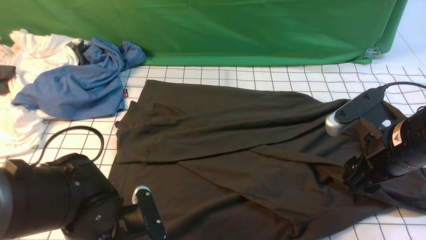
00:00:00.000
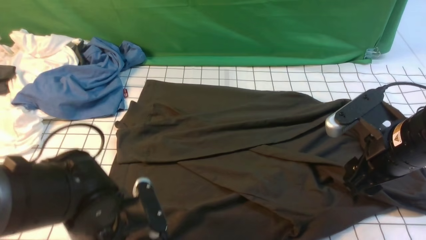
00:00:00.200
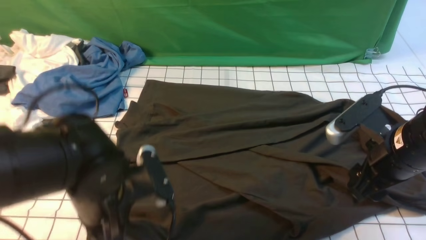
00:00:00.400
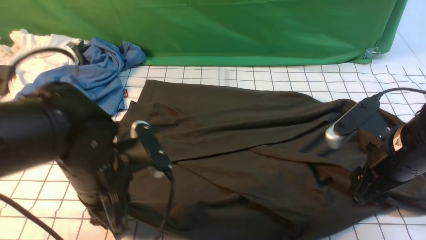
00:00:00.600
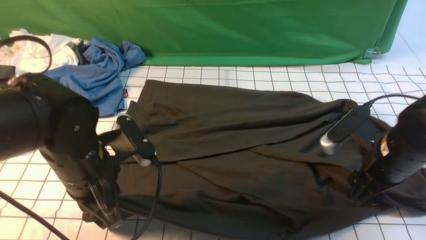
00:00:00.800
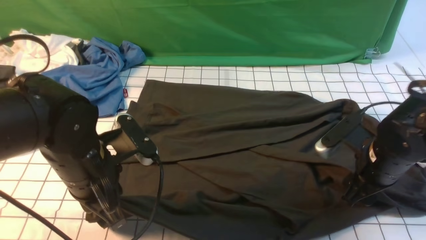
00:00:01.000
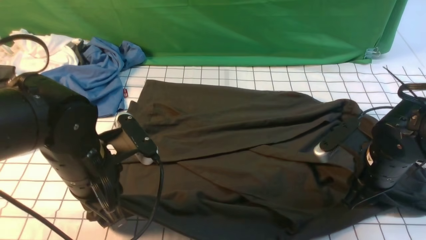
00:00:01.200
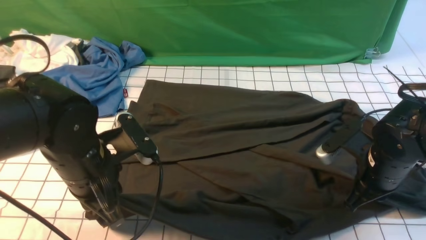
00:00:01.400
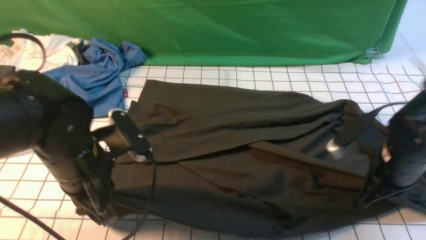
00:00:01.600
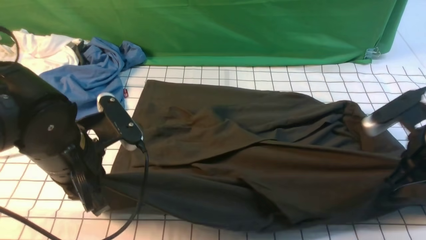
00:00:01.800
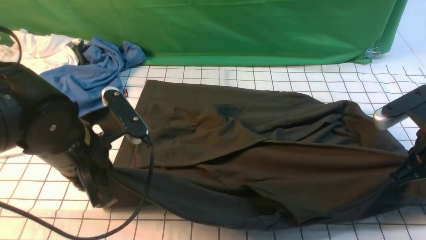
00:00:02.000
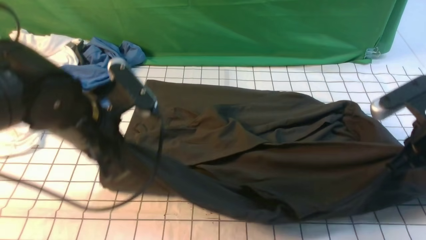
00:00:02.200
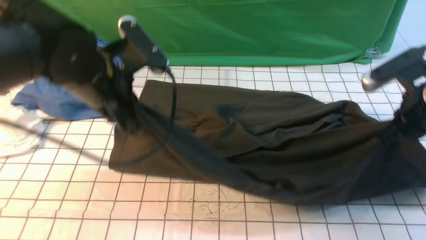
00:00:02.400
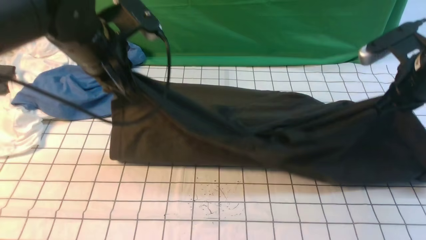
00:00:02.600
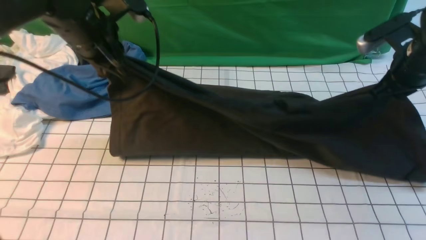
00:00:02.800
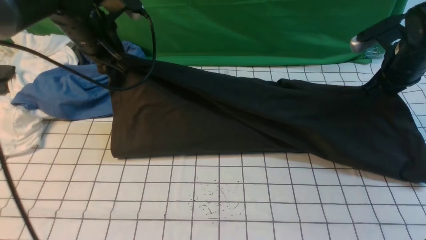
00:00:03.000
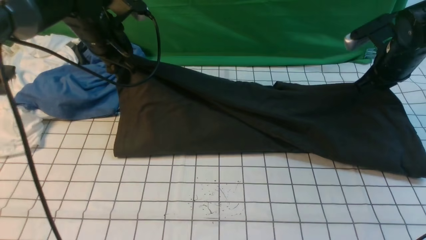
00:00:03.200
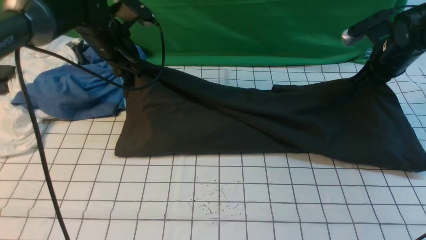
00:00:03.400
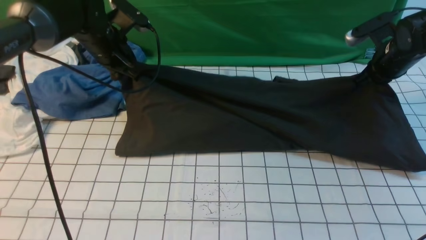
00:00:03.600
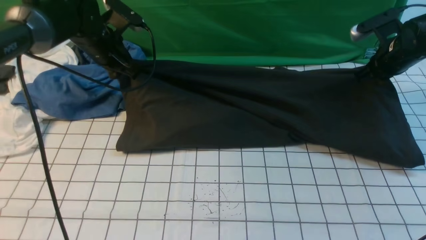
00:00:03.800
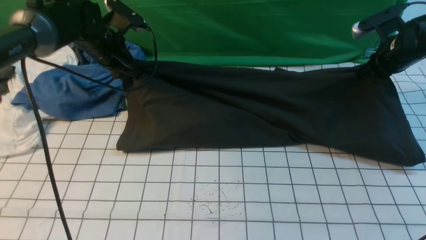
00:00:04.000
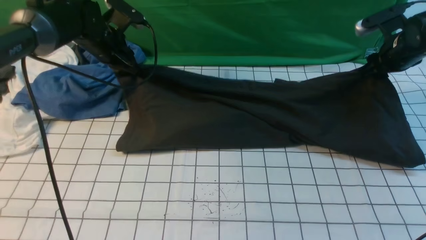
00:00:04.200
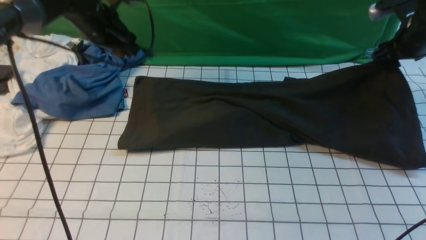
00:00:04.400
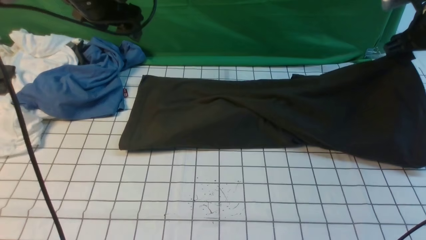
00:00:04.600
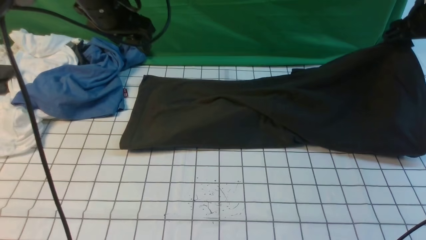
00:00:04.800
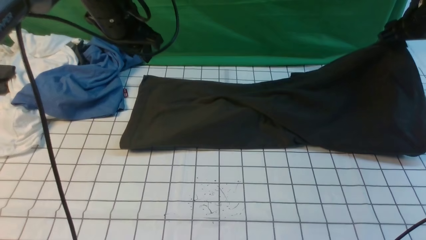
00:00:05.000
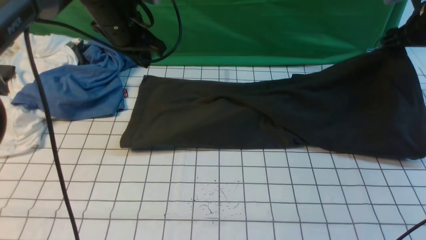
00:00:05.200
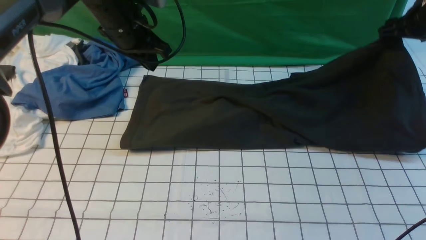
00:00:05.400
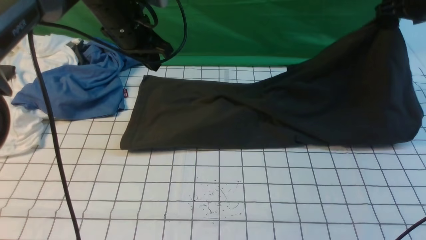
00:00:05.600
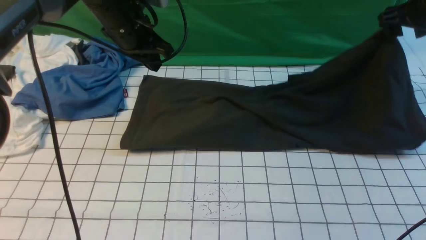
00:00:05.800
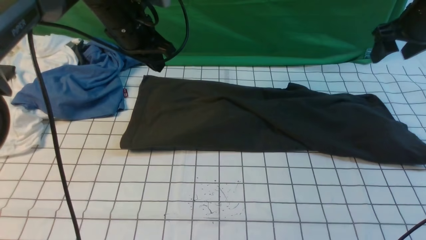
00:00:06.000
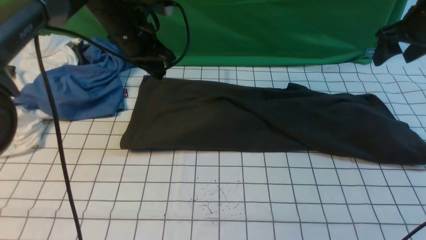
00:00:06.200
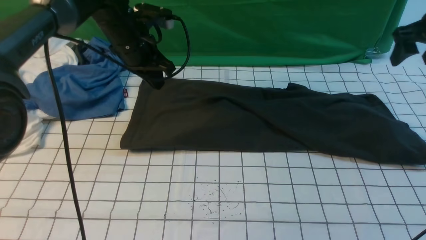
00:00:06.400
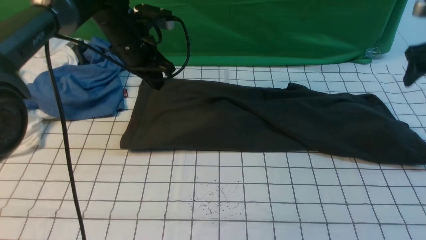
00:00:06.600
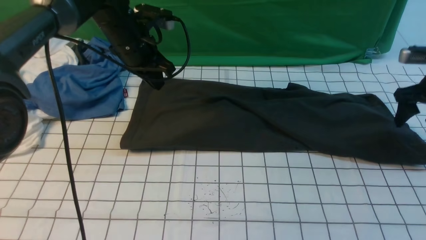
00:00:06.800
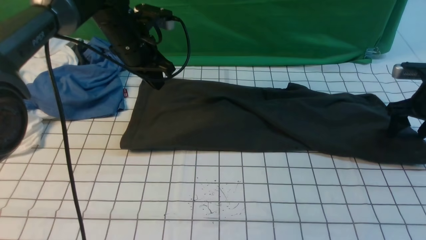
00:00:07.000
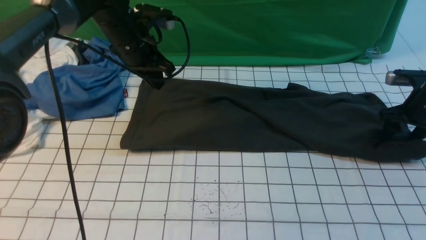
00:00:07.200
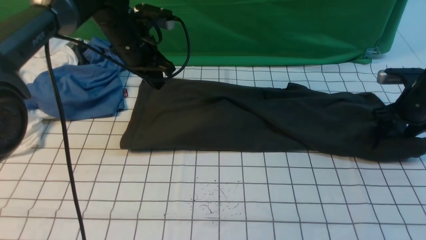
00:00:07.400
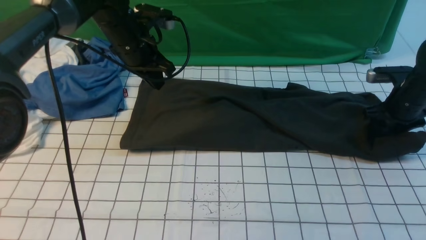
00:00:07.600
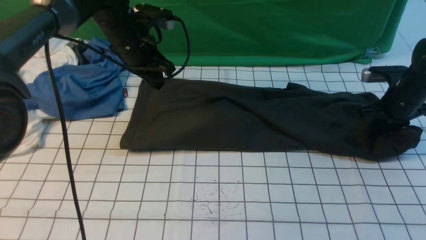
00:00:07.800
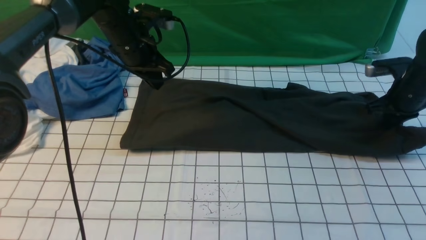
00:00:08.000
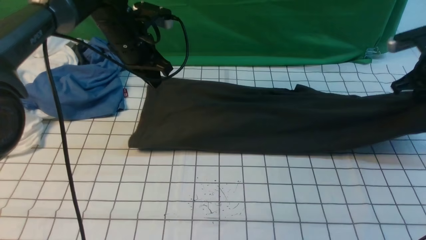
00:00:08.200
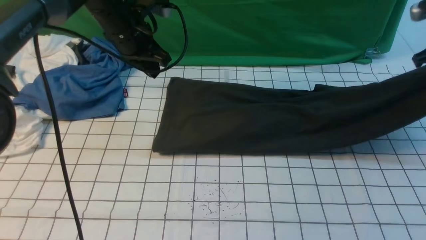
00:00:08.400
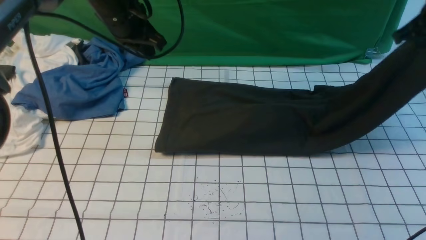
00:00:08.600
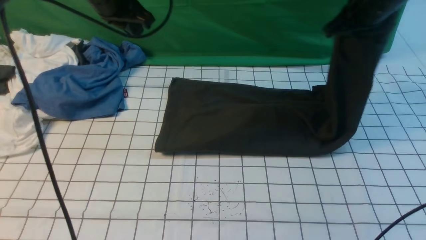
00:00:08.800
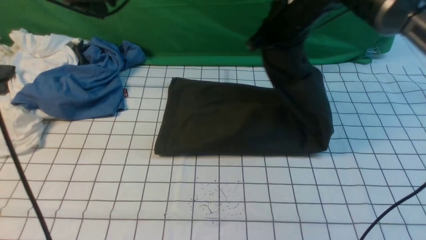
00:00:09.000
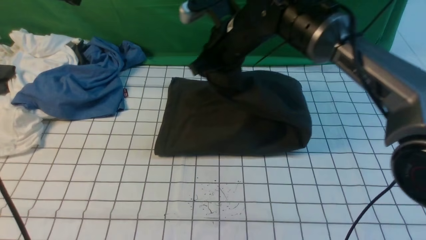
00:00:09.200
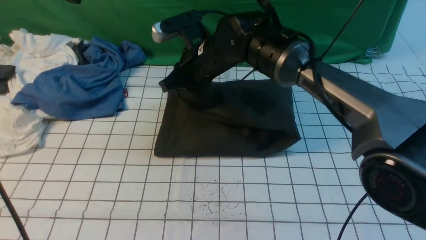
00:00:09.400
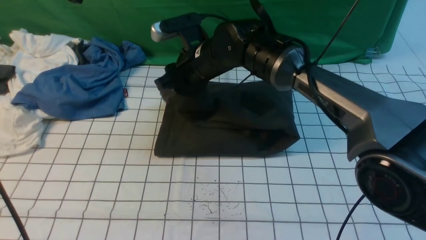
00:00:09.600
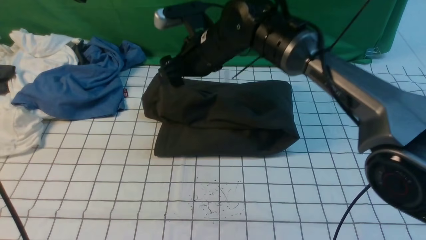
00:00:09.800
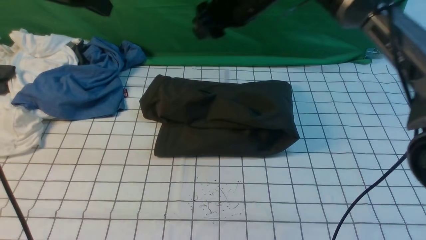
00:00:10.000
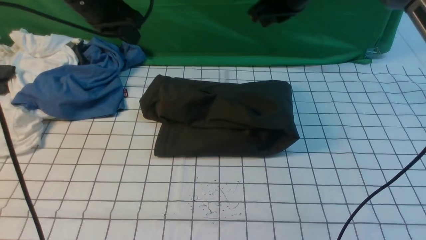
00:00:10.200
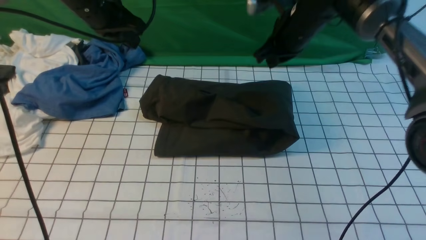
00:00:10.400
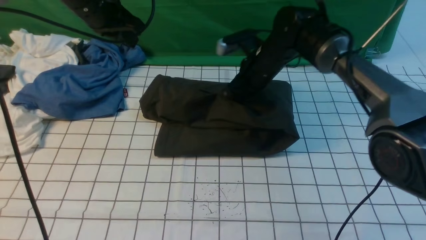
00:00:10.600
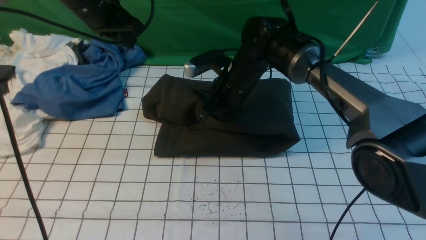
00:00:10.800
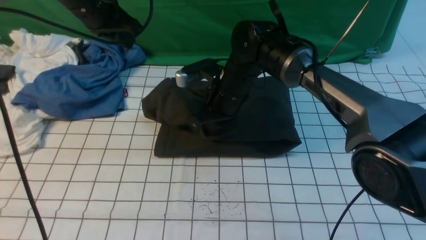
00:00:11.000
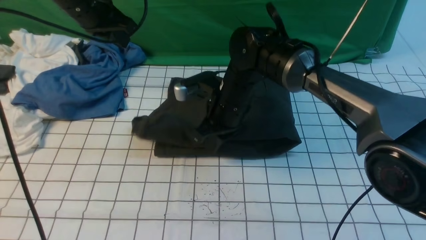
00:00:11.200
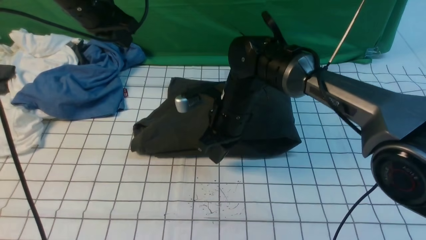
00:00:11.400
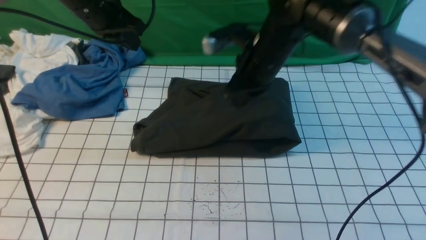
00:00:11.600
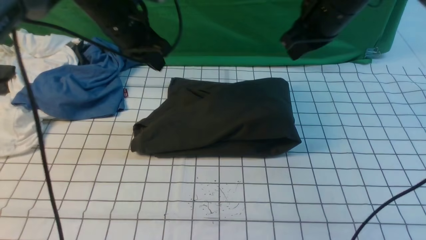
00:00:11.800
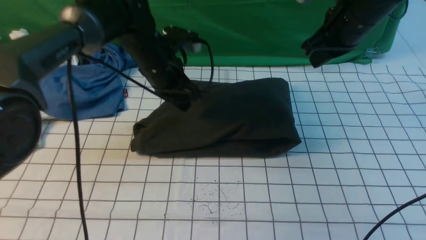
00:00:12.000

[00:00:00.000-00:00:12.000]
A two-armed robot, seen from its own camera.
Step, 00:00:01.600 to 00:00:05.800: use both arms to drag the lower edge of the fabric forward and fold it over the upper edge.
Step, 00:00:06.000 to 00:00:07.800: use the right arm to clamp the right edge of the fabric.
Step, 00:00:08.000 to 00:00:11.400: use the right arm to drag the right edge of the fabric to the left and folds it over the left edge.
00:00:00.000 to 00:00:01.600: The left gripper shifts approximately 10 cm upward and forward, while the right gripper closes its fingers.
00:00:01.600 to 00:00:03.000: Both grippers travel together forward, approximately 15 cm.
00:00:03.000 to 00:00:04.400: The left gripper shifts approximately 5 cm forward, and opens up. The right gripper changes place by about 5 cm, and opens up.
00:00:04.400 to 00:00:06.000: The left gripper is displaced to the right by approximately 5 cm, and closes up.
00:00:06.000 to 00:00:07.600: The right gripper travels downward by approximately 15 cm.
00:00:07.600 to 00:00:09.000: The right gripper shifts about 30 cm to the left and upward, and closes up. The left gripper heads upward and to the left, covering roughly 15 cm.
00:00:09.000 to 00:00:10.400: The left gripper shifts by roughly 5 cm, while the right gripper goes to the left and returns, approximately 10 cm each way, and opens and closes again.
00:00:10.400 to 00:00:12.000: The right gripper heads to the right, covering some 5 cm. The left gripper moves downward and to the right, approximately 15 cm.

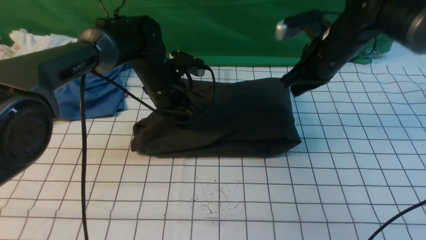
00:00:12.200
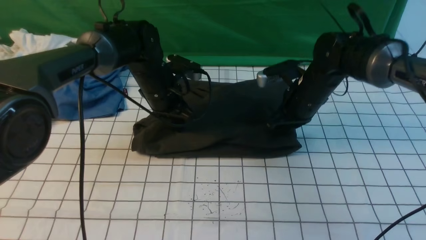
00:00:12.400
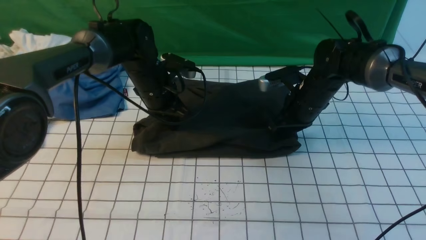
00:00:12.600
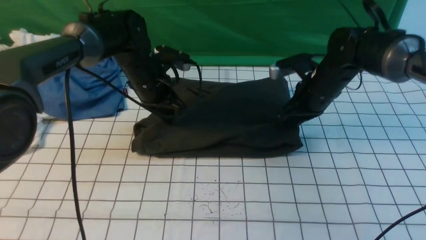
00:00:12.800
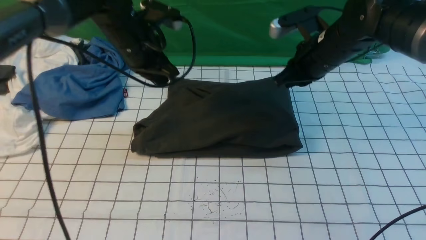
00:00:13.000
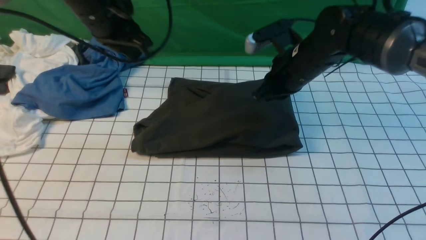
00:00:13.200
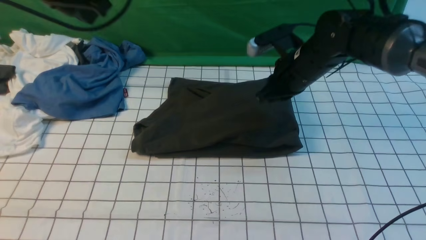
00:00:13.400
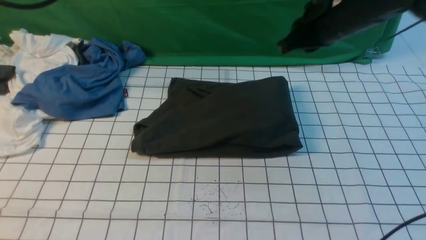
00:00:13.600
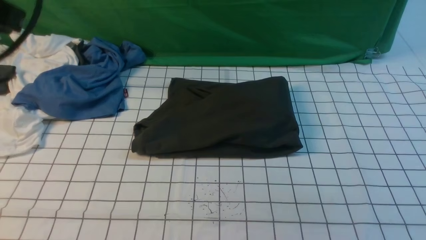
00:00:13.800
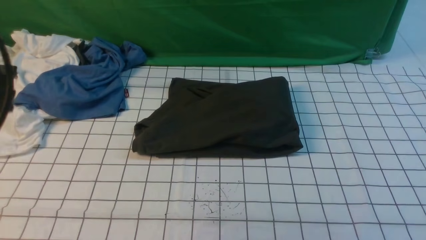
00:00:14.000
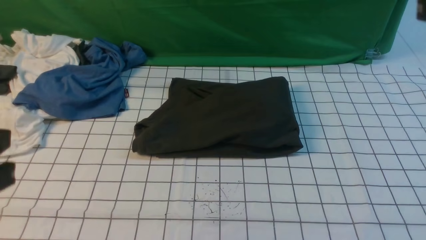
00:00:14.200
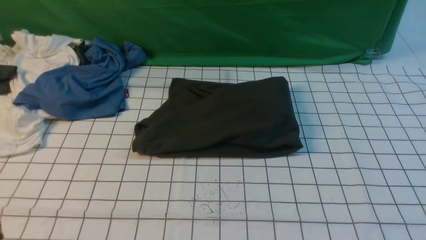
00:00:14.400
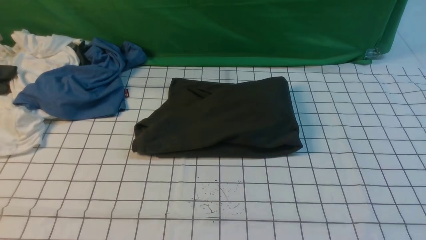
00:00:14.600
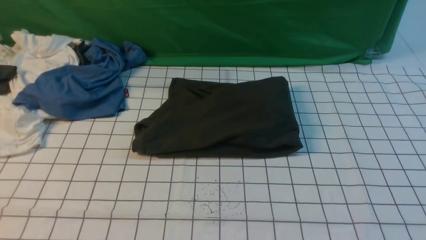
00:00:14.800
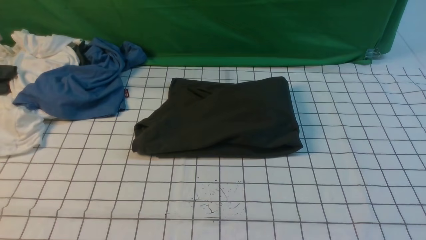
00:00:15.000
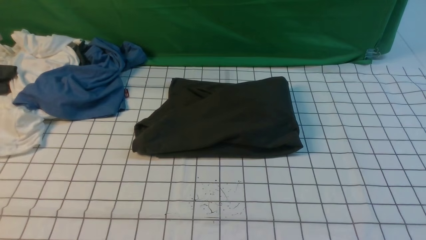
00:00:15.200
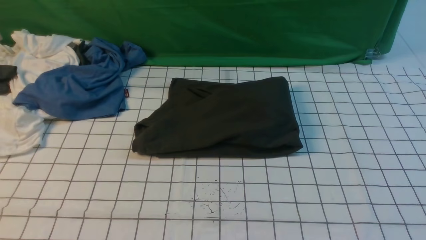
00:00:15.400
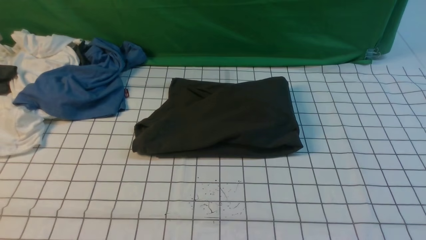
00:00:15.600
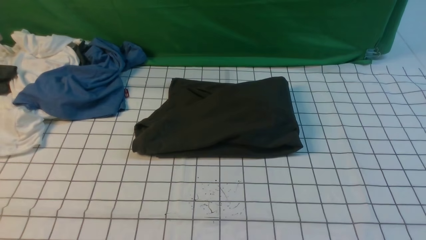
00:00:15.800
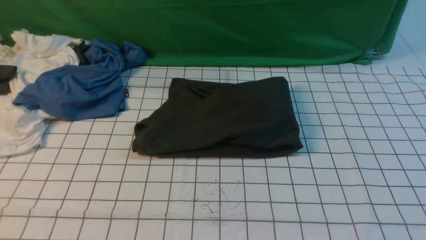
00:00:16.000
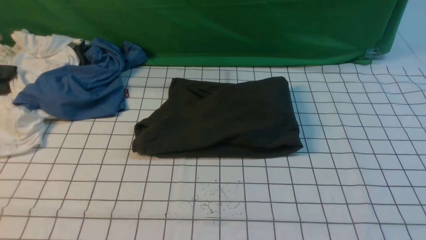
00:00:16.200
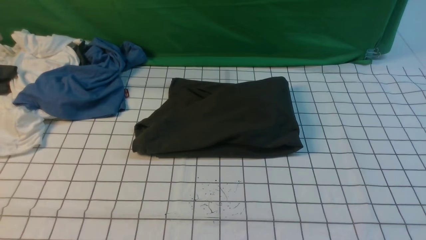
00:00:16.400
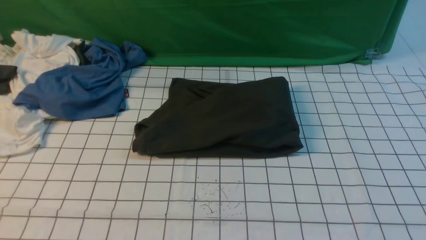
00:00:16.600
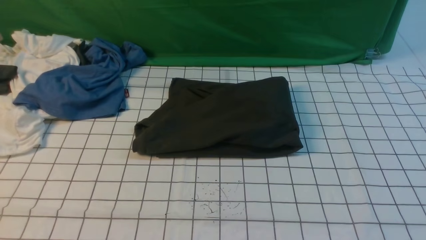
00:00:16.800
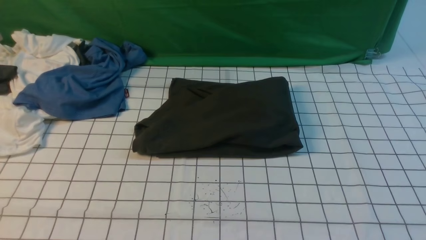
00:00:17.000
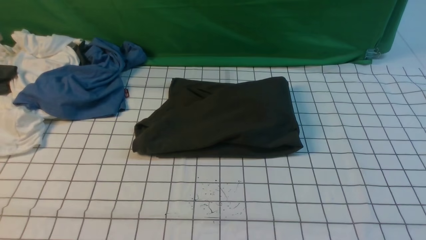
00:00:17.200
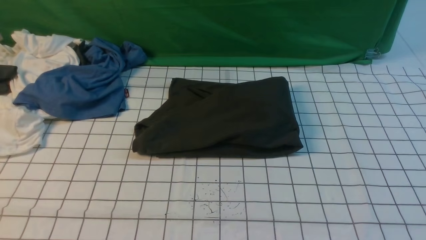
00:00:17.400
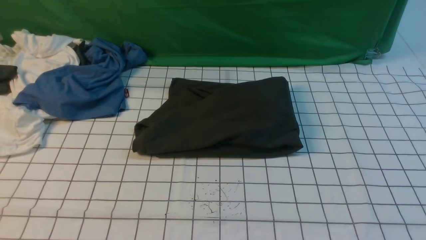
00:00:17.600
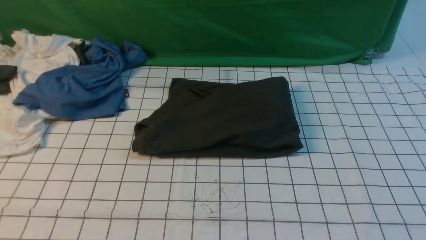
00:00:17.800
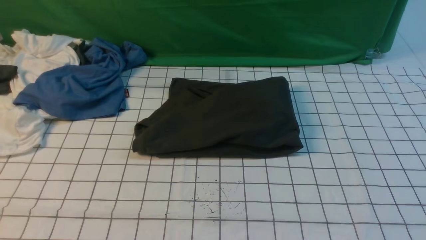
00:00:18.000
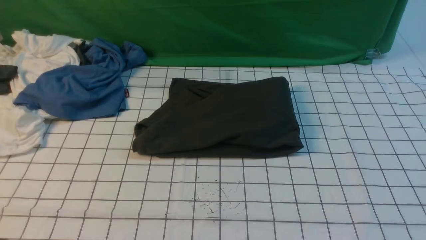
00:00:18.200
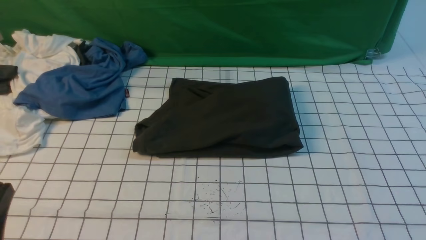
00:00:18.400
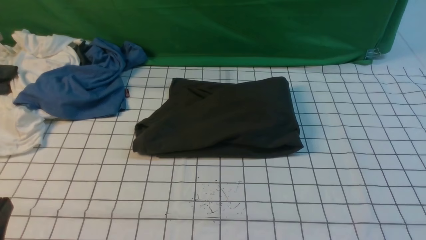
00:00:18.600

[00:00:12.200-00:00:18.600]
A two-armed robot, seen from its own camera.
00:00:12.200 to 00:00:13.800: The left gripper goes about 35 cm upward, backward and to the left. Meanwhile the right gripper travels upward and backward by approximately 25 cm.
00:00:13.800 to 00:00:15.400: The left gripper travels backward and downward by about 25 cm.
